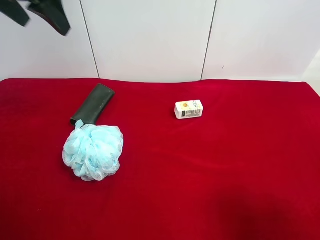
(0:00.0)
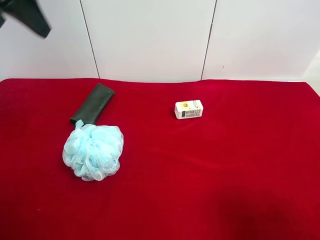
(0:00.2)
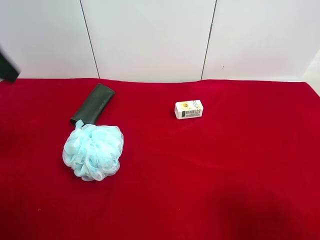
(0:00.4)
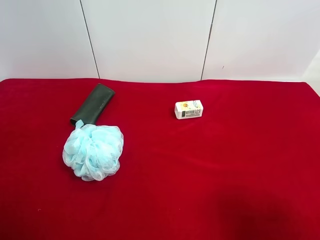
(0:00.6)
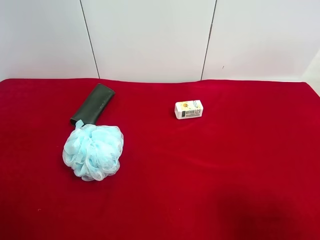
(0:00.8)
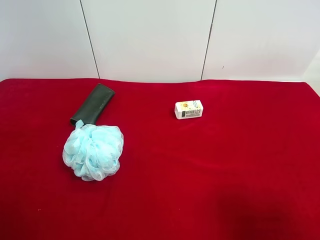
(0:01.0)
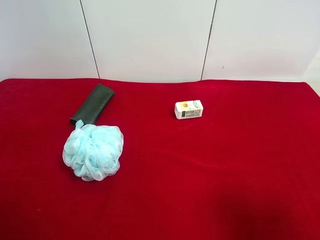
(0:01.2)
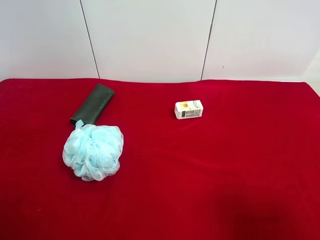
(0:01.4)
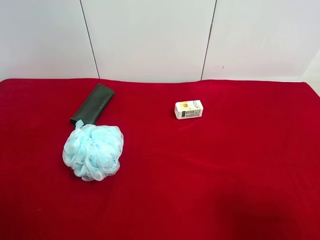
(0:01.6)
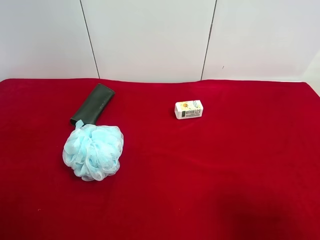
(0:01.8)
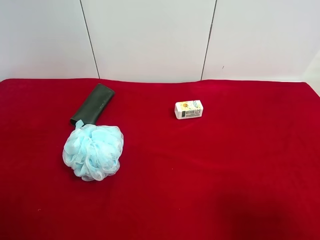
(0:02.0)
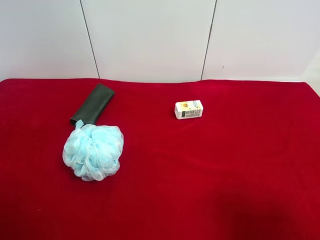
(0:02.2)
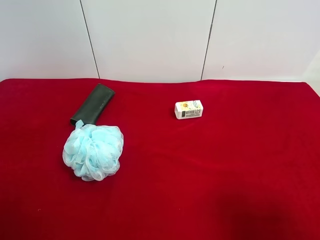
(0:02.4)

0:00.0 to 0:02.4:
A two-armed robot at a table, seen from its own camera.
Task of the whole recording: use the right gripper to pick up the item and transfer it from the right gripper to the left gripper.
0:00.0 to 0:01.2: The left gripper heads backward, covering about 30 cm.
